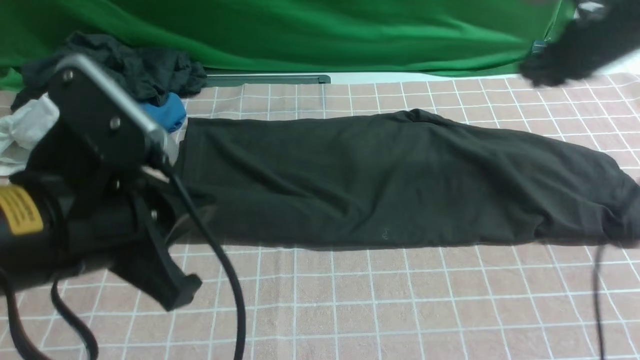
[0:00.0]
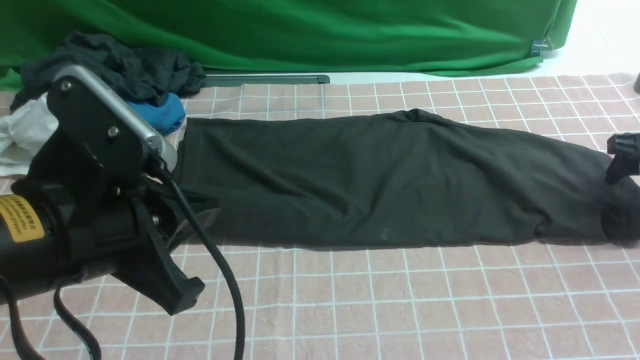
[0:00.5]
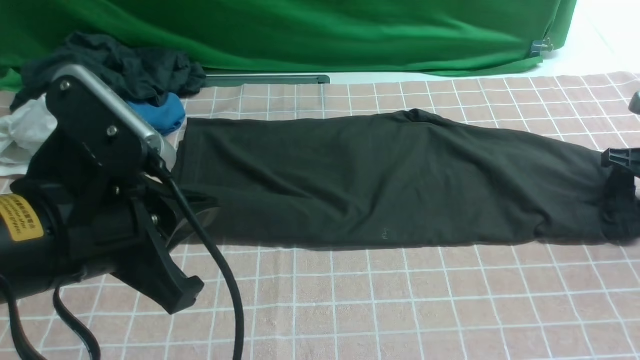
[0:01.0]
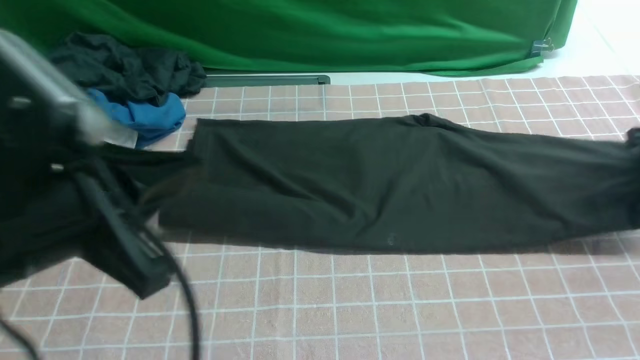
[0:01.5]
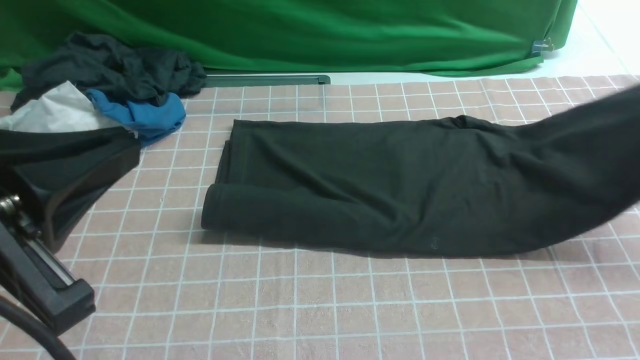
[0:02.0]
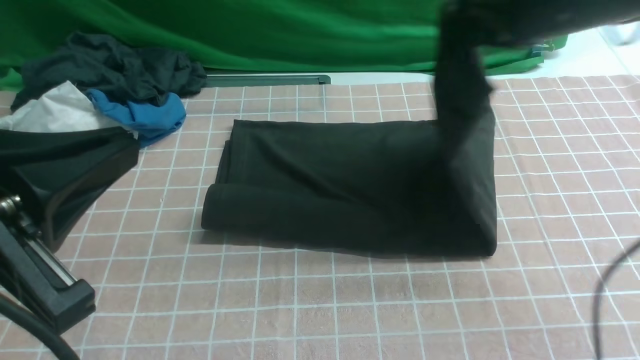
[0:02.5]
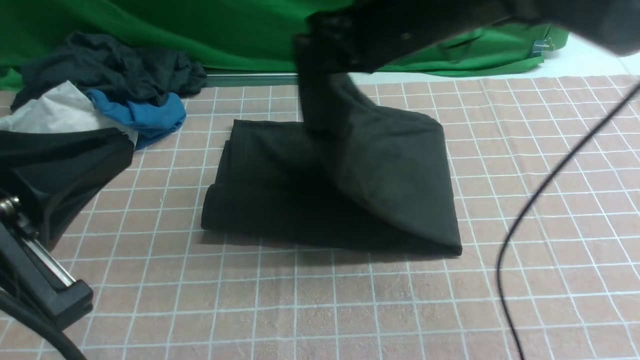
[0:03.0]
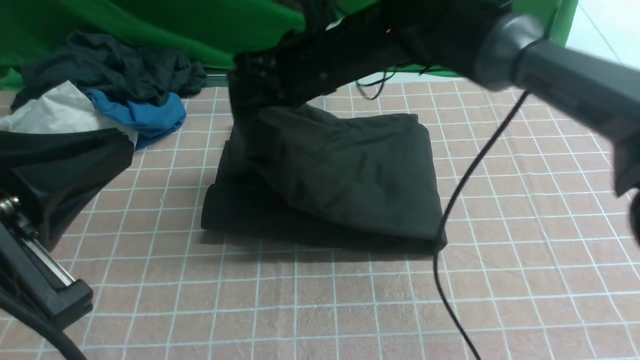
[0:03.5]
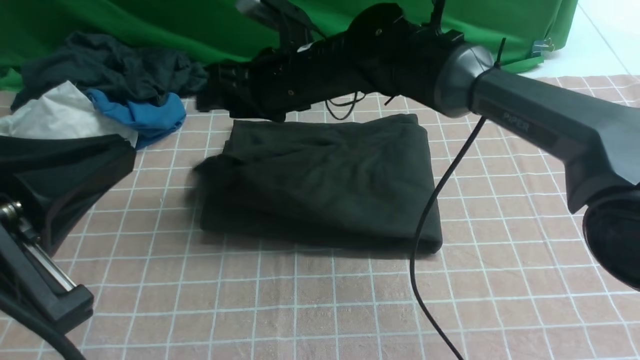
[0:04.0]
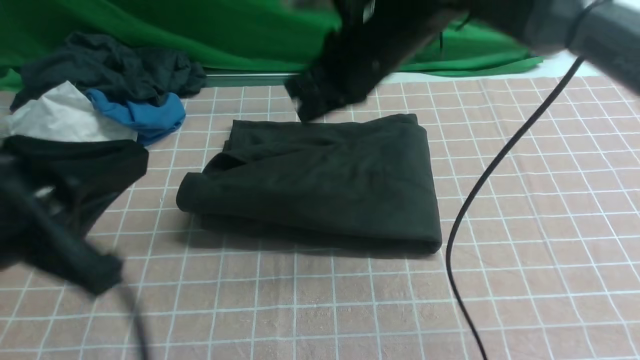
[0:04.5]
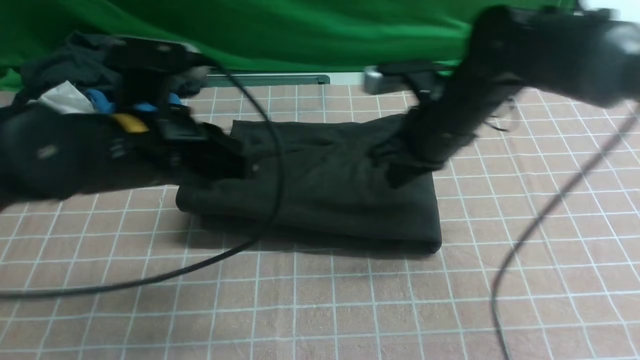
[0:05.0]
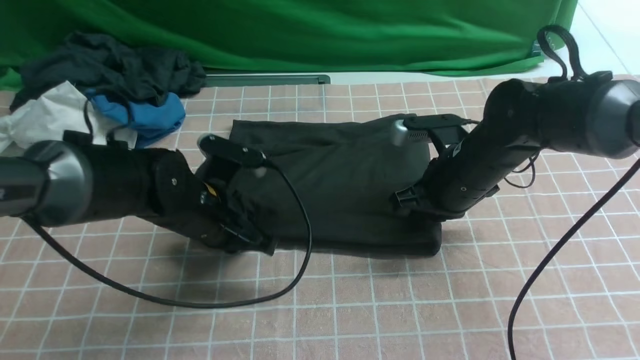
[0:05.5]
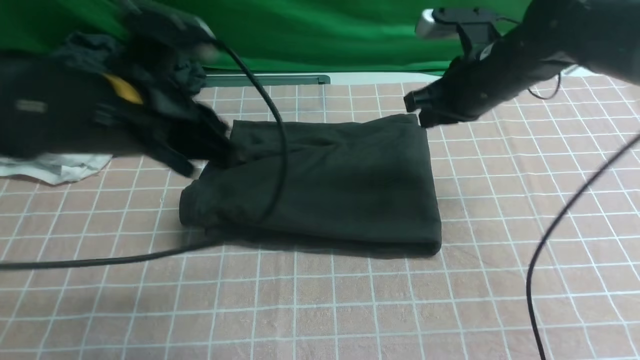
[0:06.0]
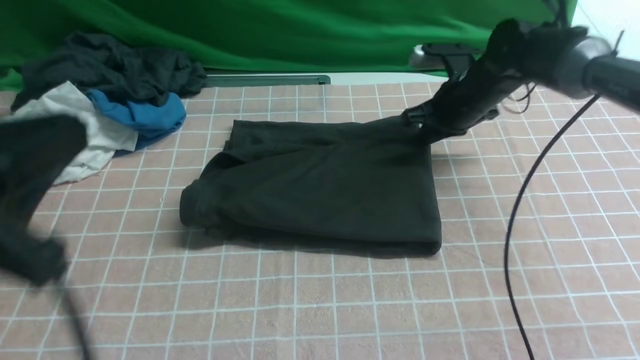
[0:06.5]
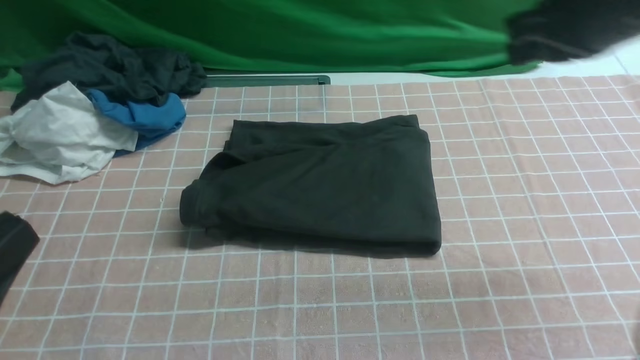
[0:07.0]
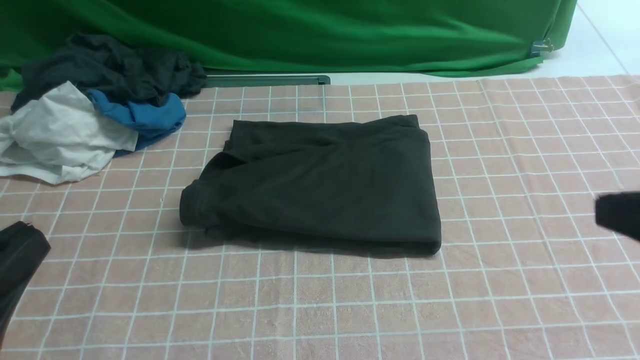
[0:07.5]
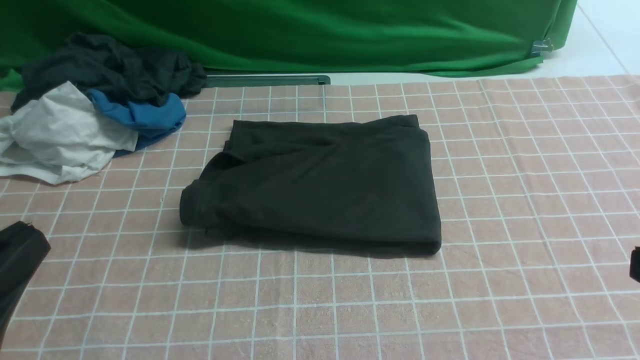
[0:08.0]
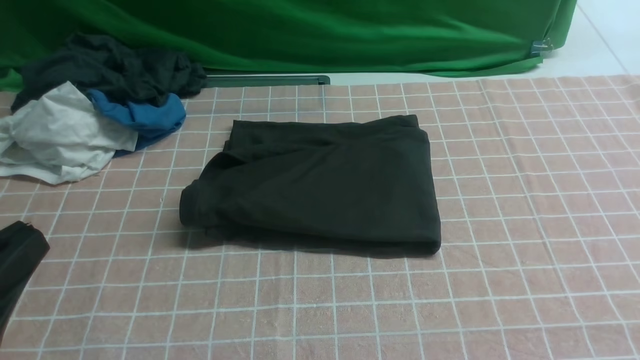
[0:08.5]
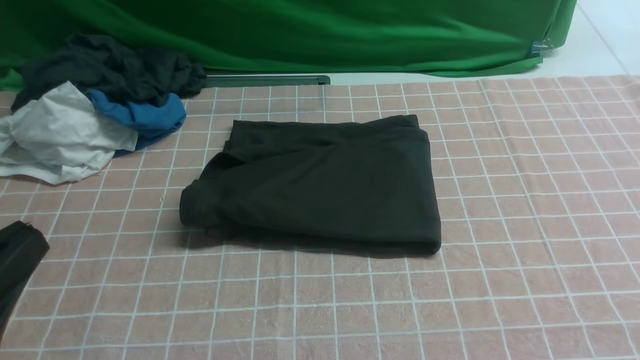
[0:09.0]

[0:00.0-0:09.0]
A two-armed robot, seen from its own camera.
Step, 0:01.5 to 0:04.0: use the right arm to drag the right edge of the fabric to the left and folds it over the left edge.
0:00.0 to 0:02.0: The left gripper is displaced backward by about 5 cm. The right gripper is displaced backward and upward by approximately 10 cm, and opens and closes again.
0:02.0 to 0:04.5: The right gripper moves to the left, about 30 cm, and opens, then closes once more.
0:04.5 to 0:07.0: The right gripper moves to the right, upward and backward, about 20 cm. The left gripper goes about 10 cm backward.
0:07.0 to 0:09.0: The right gripper heads backward and downward, covering about 30 cm.

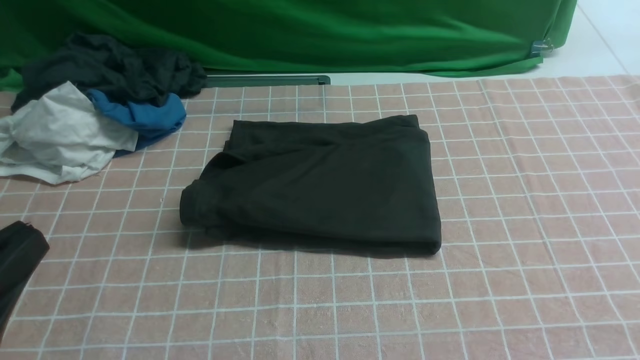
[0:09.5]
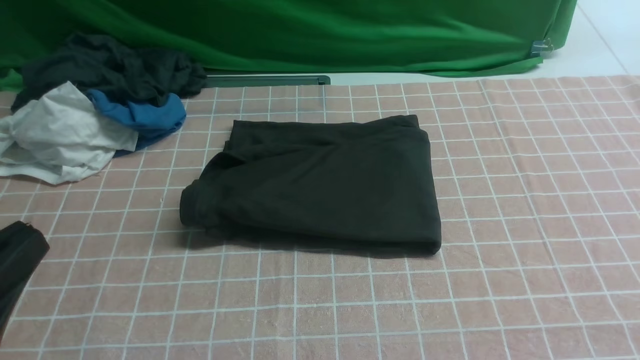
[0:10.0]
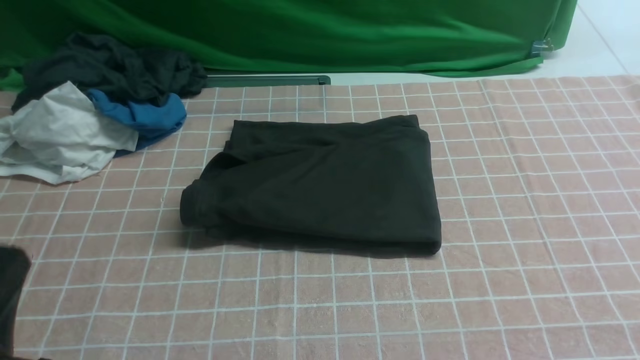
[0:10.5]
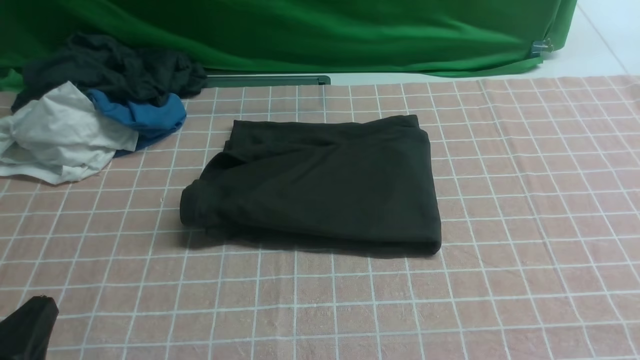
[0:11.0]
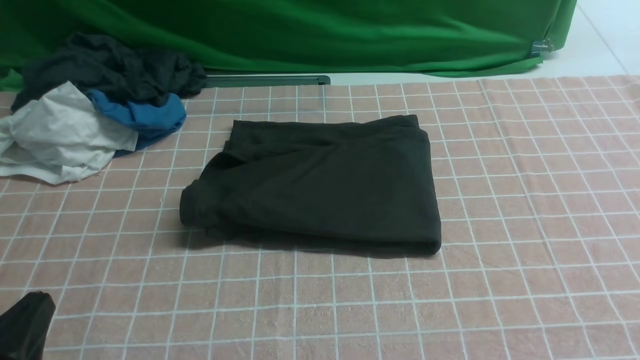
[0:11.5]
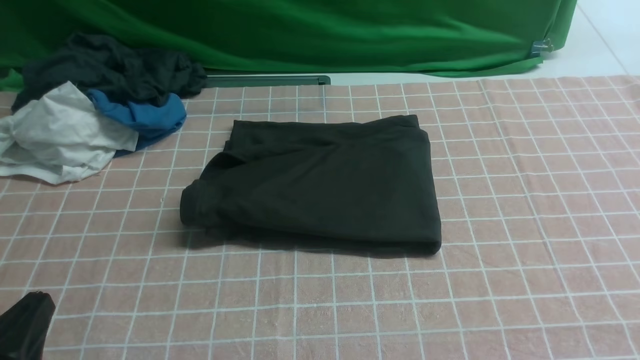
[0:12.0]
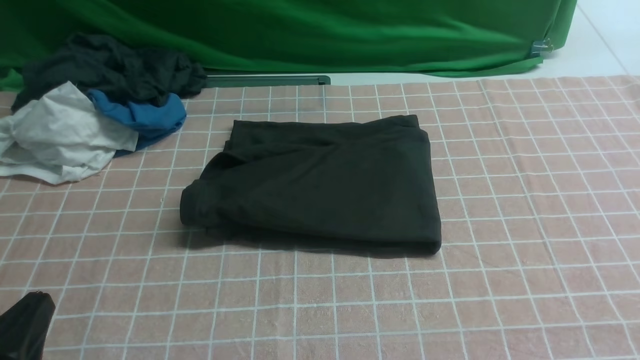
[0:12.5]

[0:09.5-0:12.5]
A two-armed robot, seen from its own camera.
0:09.5 to 0:11.0: The left gripper travels downward by some 10 cm.
0:11.0 to 0:12.5: The two grippers keep their place.
